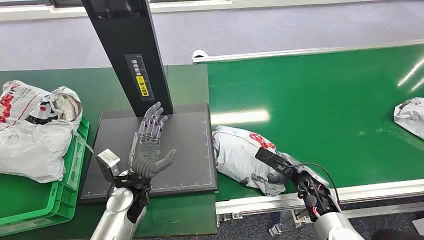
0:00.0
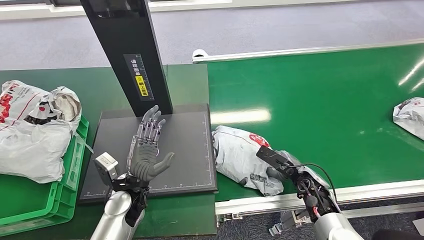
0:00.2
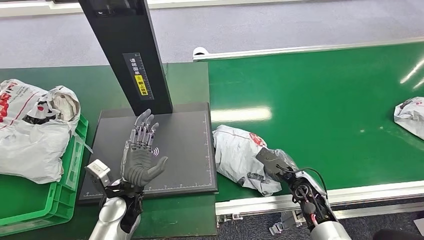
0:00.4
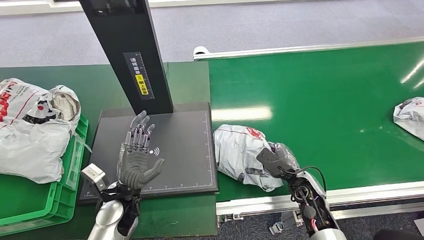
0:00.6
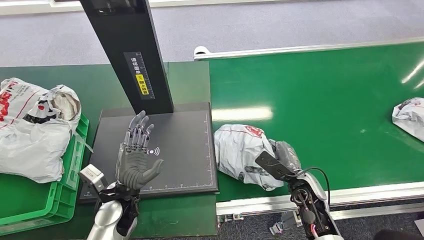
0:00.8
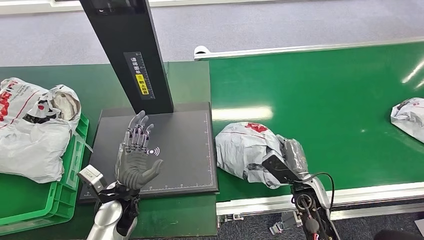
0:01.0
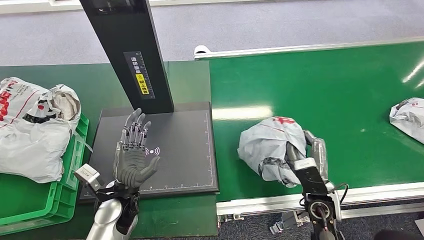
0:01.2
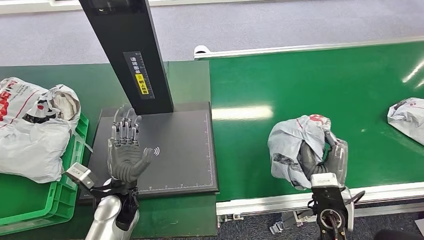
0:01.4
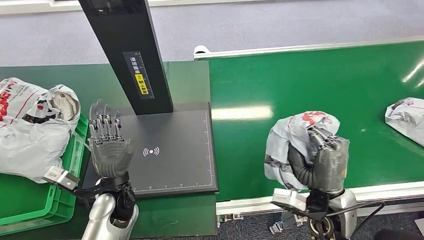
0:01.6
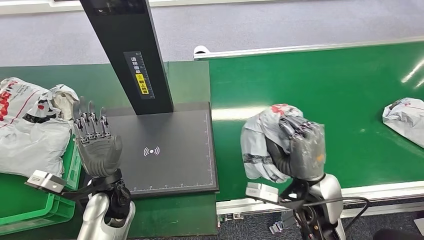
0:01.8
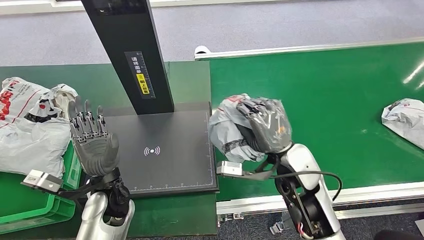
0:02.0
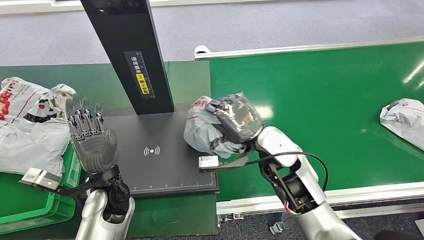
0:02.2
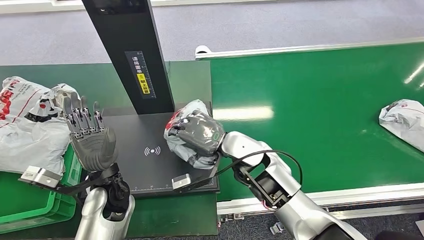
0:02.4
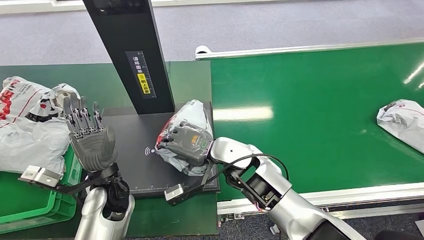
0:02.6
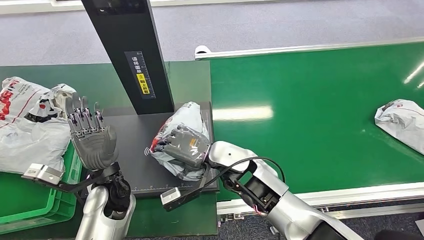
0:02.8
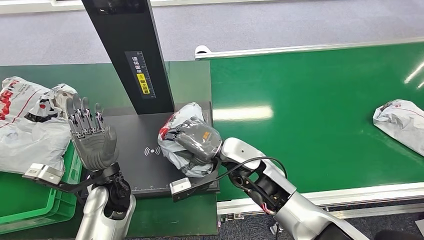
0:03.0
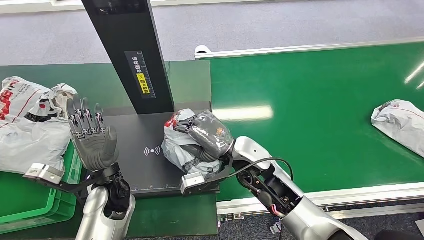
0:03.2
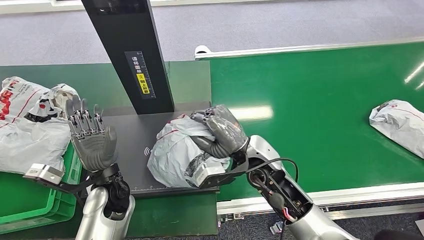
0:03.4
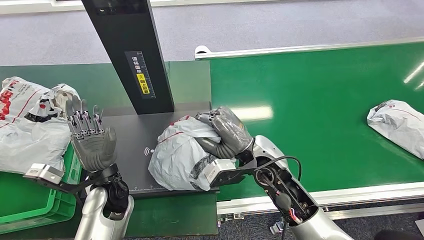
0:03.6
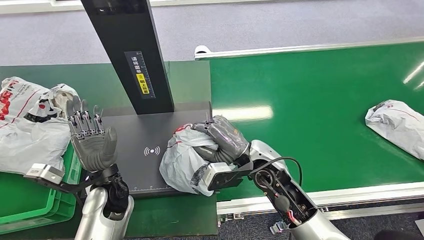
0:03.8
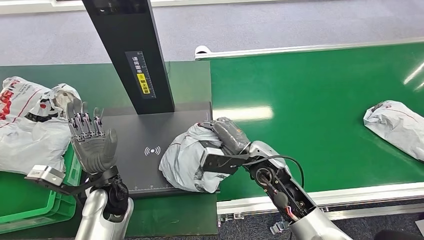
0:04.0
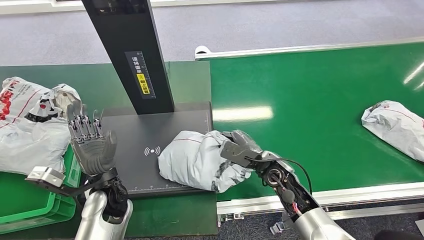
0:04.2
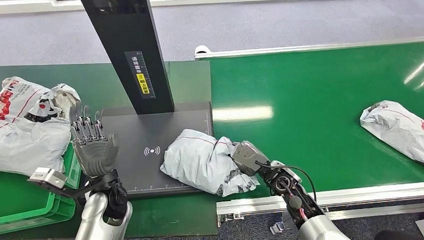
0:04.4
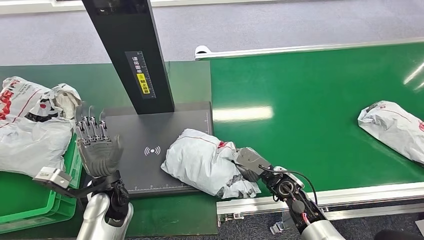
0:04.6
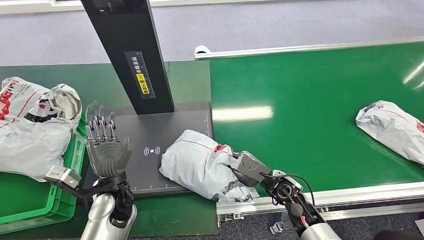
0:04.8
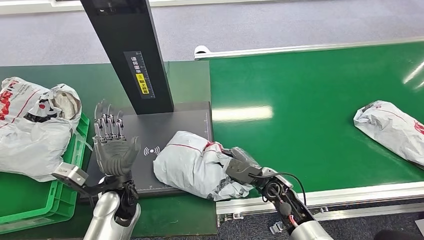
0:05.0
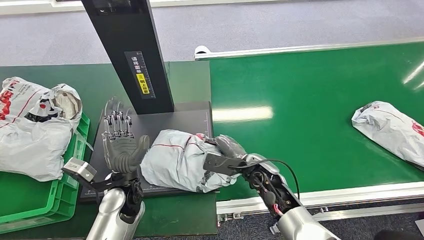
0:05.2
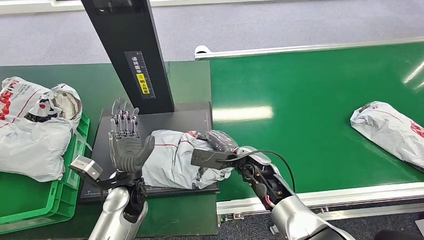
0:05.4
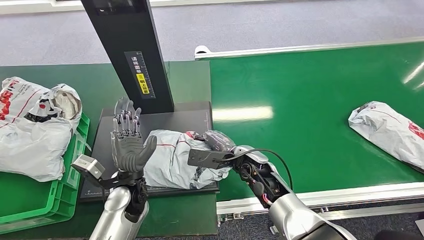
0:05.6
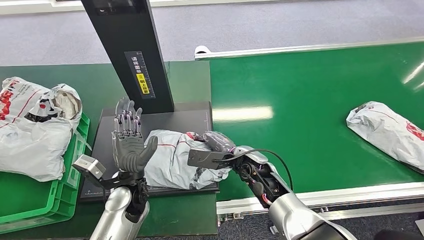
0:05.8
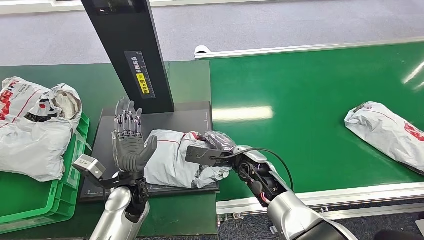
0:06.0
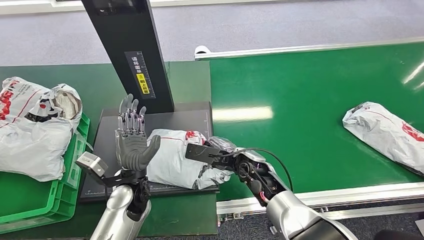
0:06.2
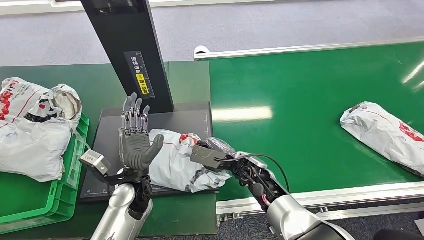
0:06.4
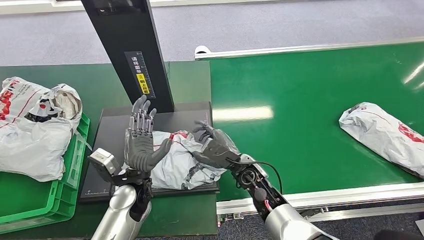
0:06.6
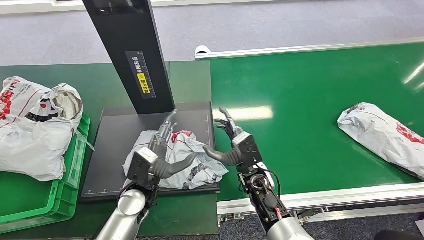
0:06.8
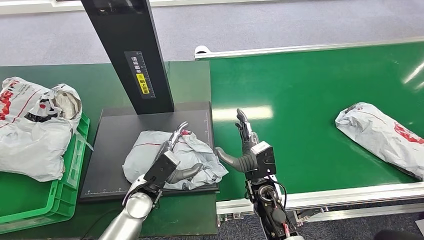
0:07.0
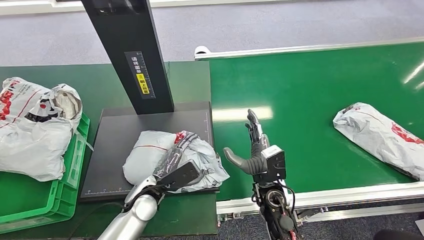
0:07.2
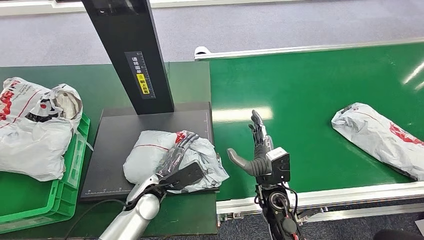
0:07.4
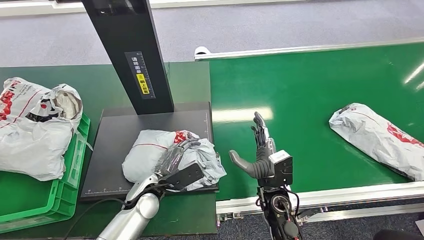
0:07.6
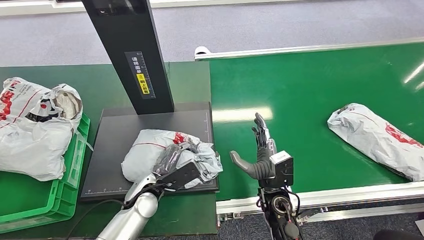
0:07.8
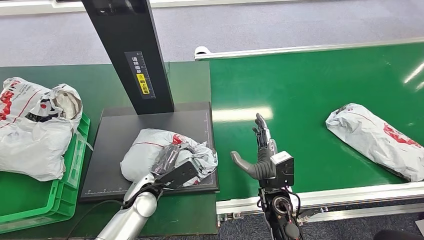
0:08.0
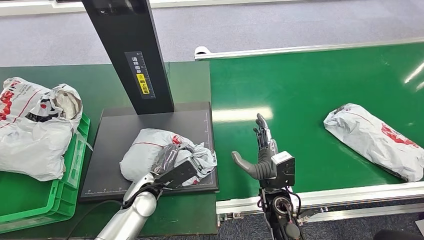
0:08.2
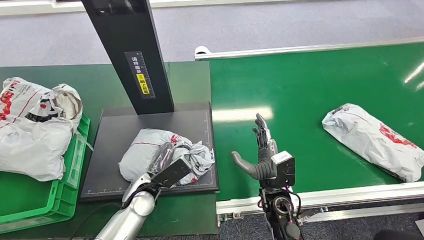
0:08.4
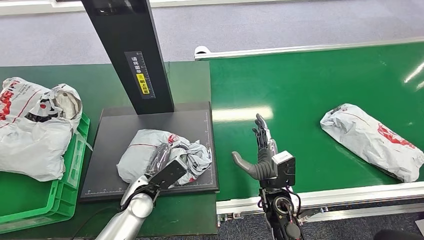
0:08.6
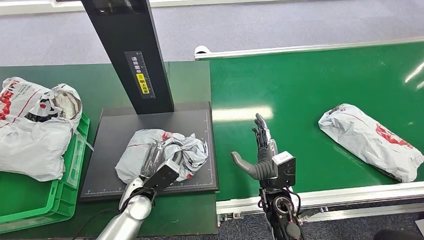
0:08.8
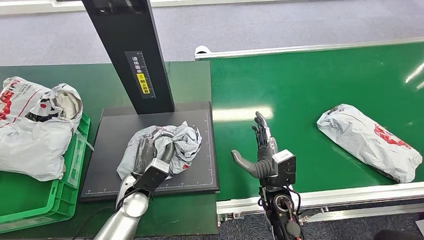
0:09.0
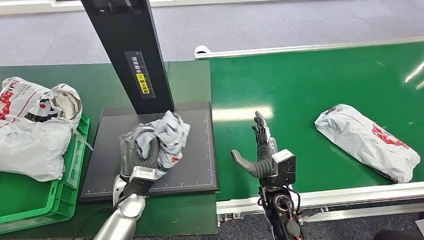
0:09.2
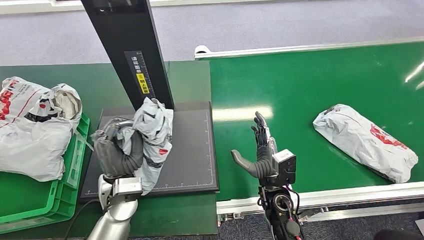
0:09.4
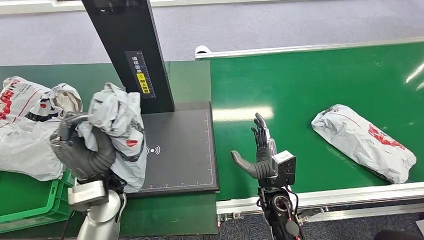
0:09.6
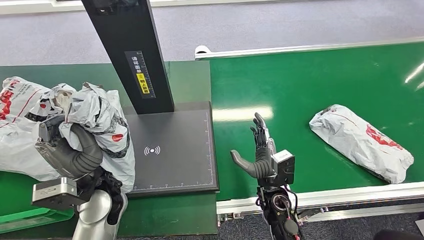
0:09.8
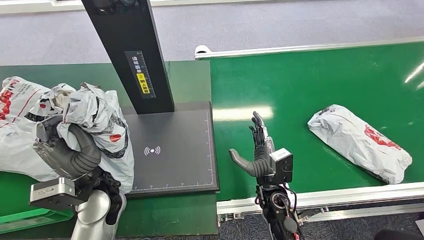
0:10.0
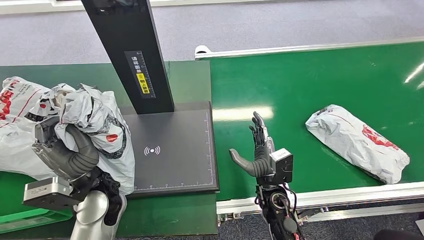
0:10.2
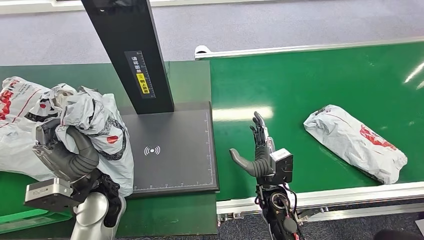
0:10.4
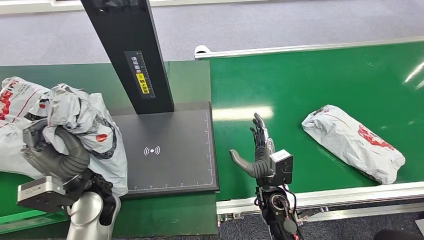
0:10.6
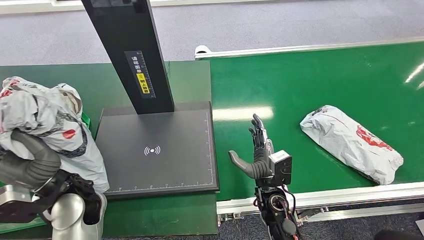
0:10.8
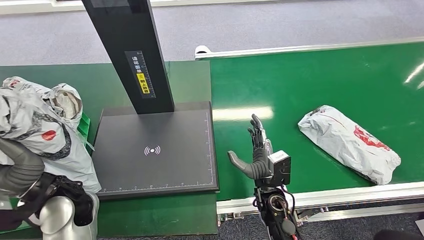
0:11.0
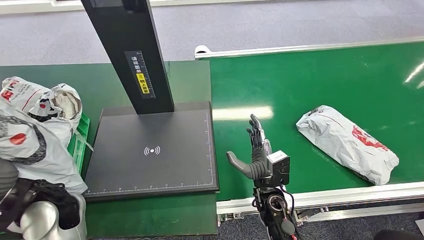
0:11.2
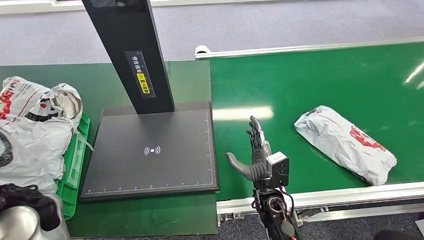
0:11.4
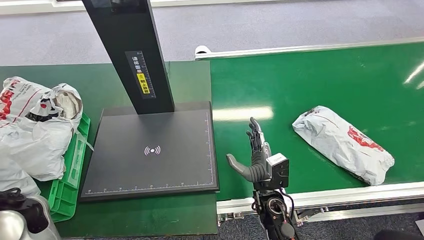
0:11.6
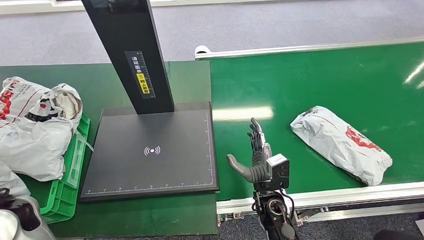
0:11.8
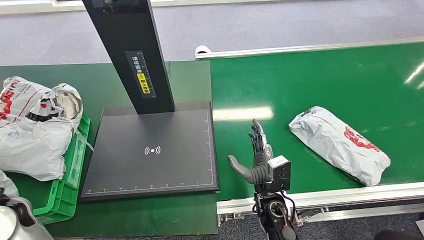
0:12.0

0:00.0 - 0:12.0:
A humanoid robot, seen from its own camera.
Step, 0:00.0 - 0:01.8: Pick up the package from the conveyor belt.
Step, 0:02.0 - 0:07.0: Place the package onto the inbound machine.
Step, 0:07.4 - 0:10.8: Pick up the package from the inbound machine.
0:03.0 - 0:04.4: The right hand heads to the right and downward, covering about 15 cm.
0:04.4 - 0:06.0: The right hand goes approximately 10 cm to the left.

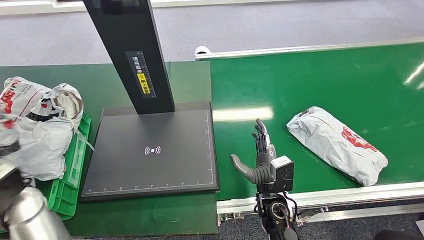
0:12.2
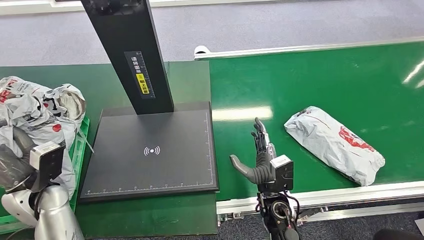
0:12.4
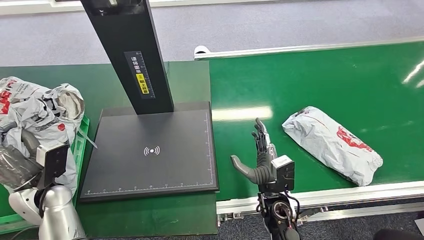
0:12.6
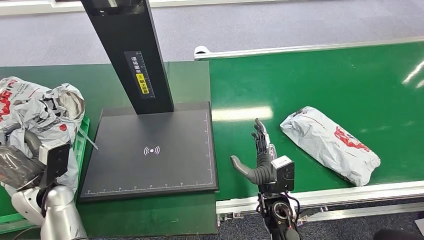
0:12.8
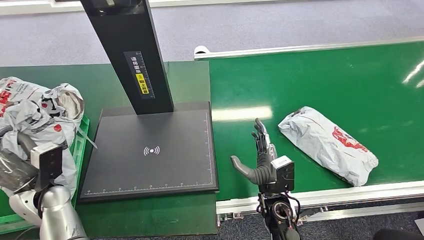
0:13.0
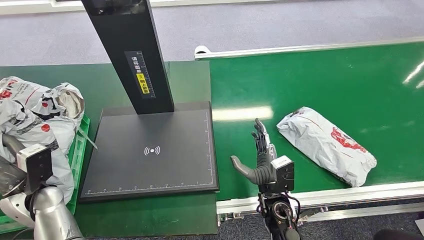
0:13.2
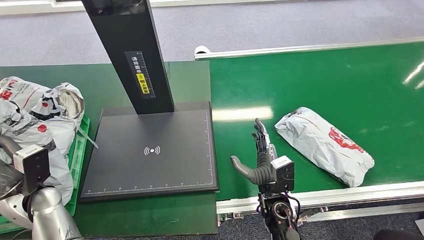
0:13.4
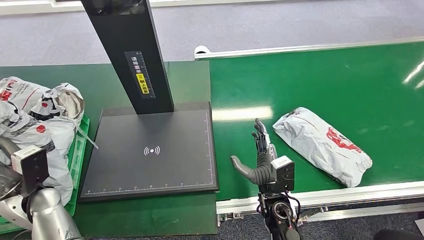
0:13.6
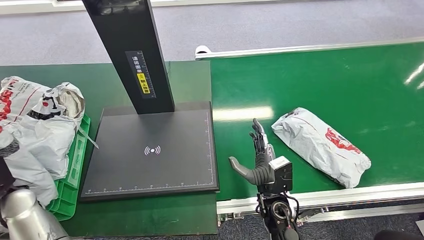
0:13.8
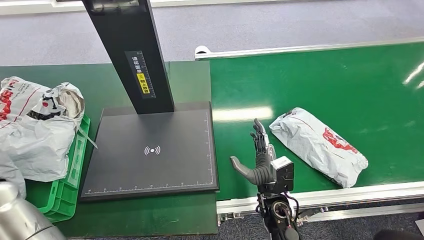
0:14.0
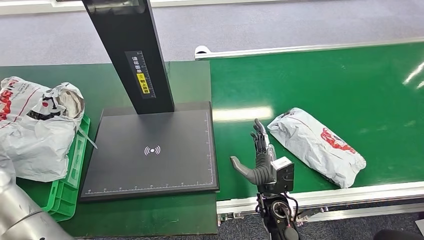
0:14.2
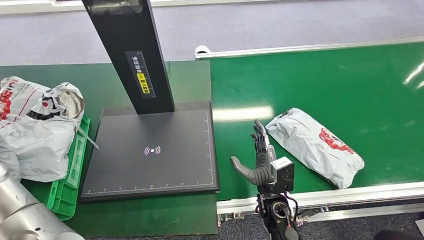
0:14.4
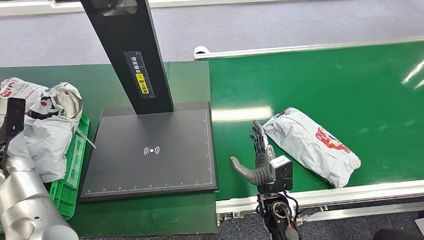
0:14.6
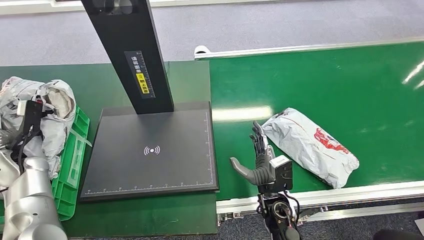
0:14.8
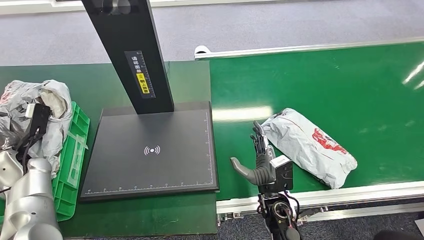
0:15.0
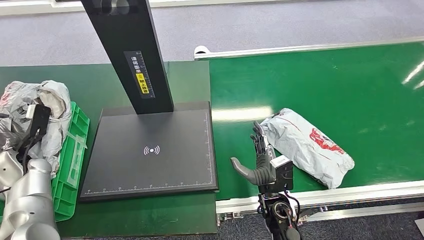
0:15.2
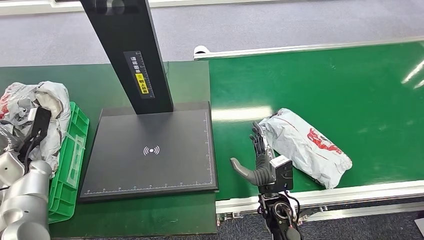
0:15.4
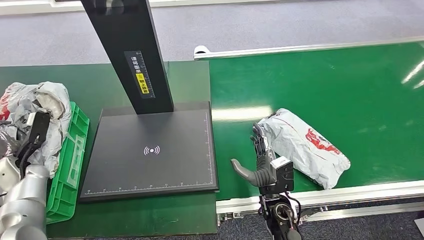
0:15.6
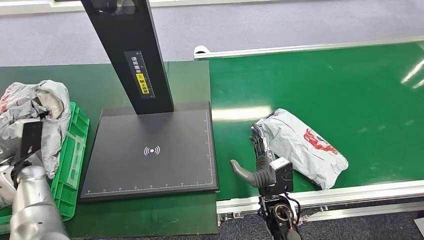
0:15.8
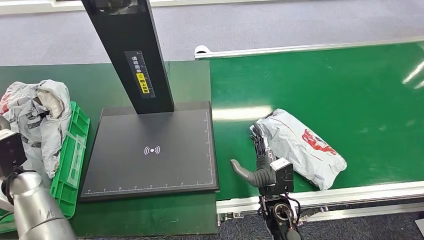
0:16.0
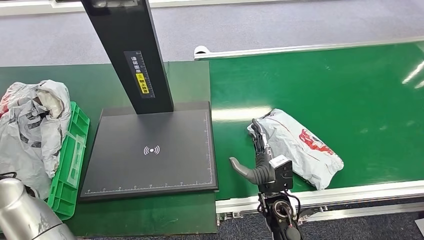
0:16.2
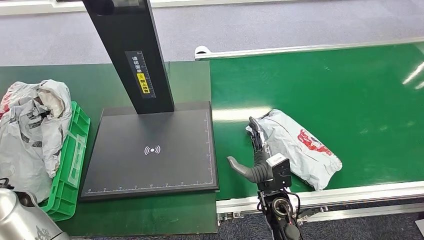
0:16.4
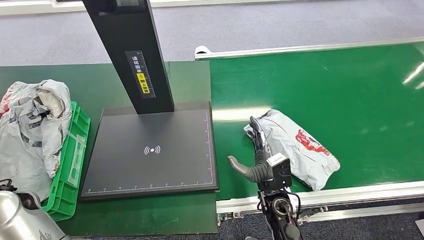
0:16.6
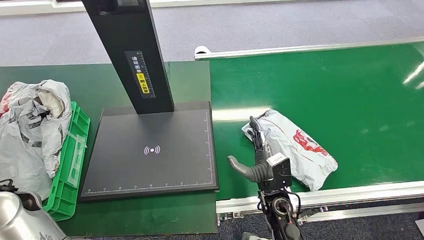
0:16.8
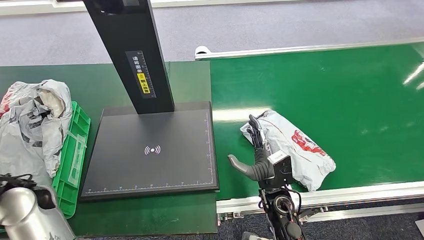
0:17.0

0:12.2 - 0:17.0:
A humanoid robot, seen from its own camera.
Step, 0:12.2 - 0:17.0: Place the package into the parcel locker.
0:12.2 - 0:13.8: The left hand moves downward, approximately 5 cm.
0:13.8 - 0:15.4: The left hand heads to the left, forward and downward, covering some 15 cm.
0:15.4 - 0:17.0: The left hand travels to the right, upward and backward by some 20 cm.
